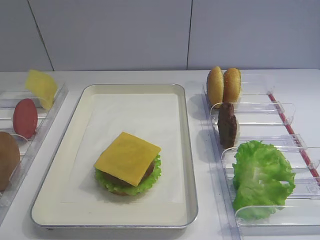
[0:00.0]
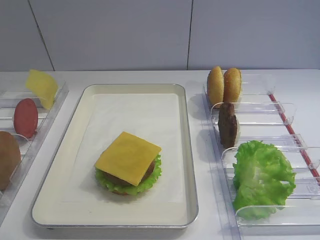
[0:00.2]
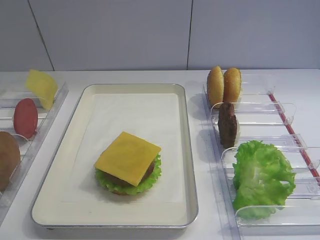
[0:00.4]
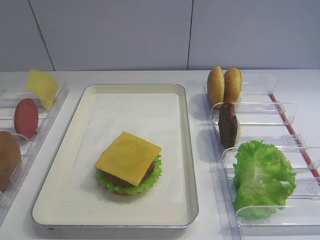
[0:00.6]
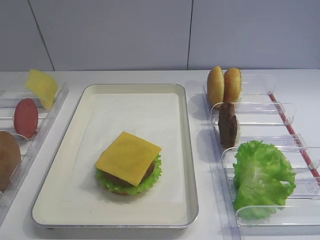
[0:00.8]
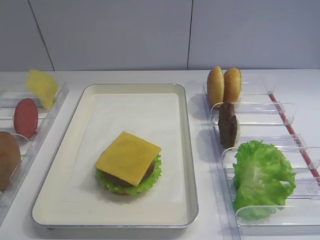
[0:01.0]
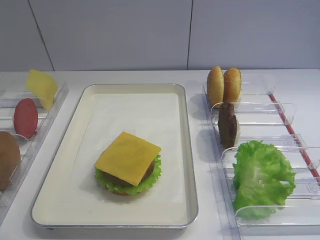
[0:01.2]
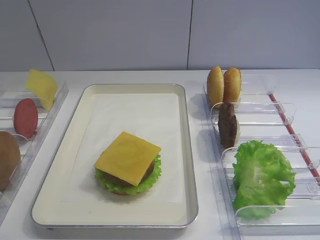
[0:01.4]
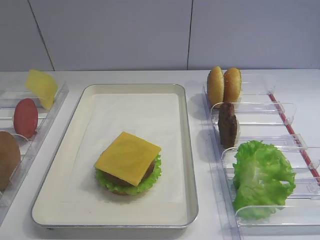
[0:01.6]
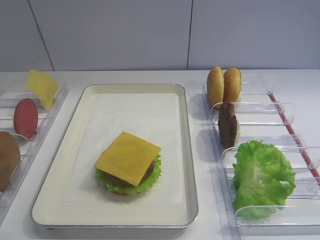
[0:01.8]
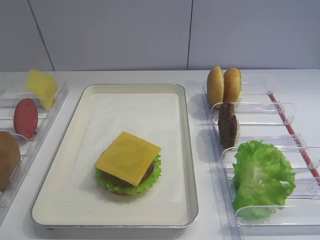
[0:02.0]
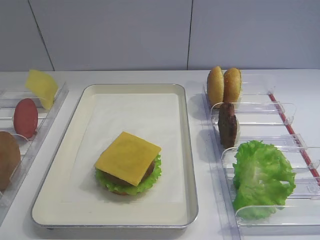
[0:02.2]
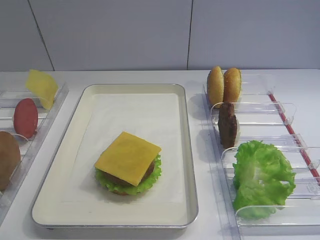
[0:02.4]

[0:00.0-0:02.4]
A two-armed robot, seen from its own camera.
0:00.0 to 0:02.4: The two grippers keep their place.

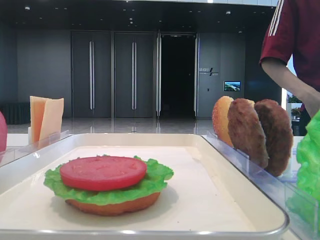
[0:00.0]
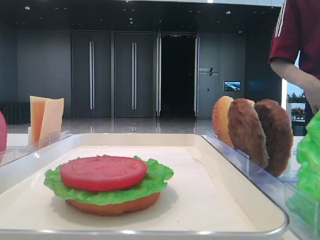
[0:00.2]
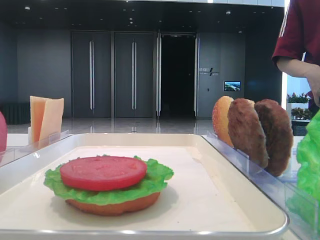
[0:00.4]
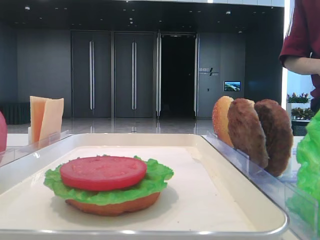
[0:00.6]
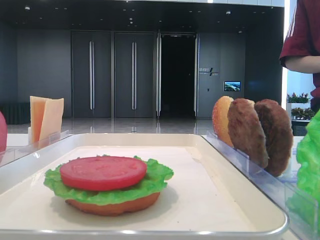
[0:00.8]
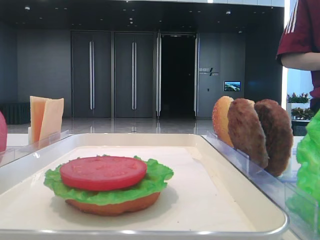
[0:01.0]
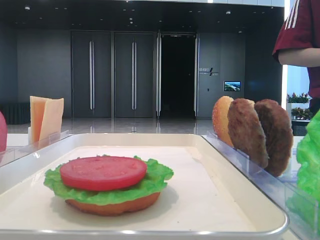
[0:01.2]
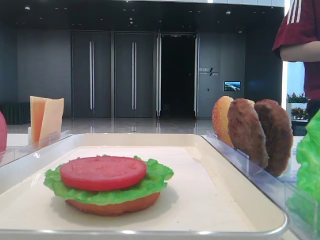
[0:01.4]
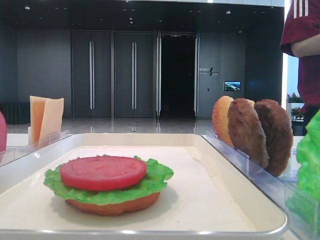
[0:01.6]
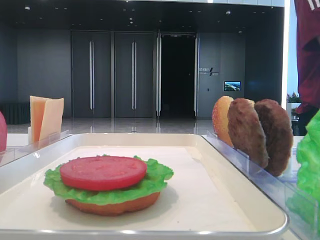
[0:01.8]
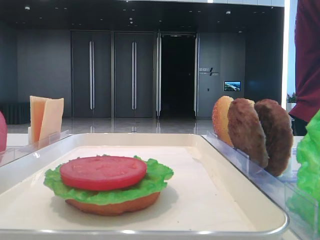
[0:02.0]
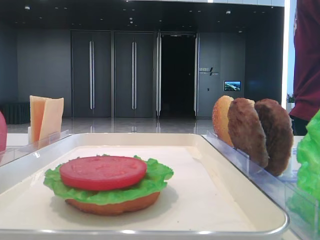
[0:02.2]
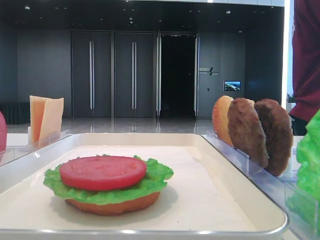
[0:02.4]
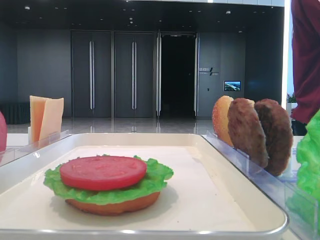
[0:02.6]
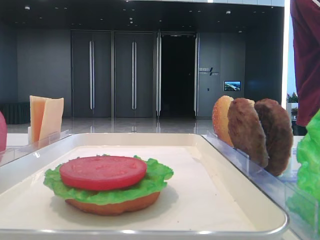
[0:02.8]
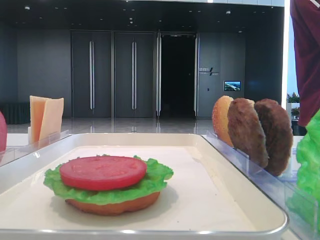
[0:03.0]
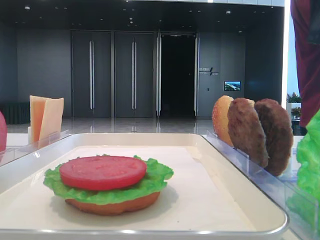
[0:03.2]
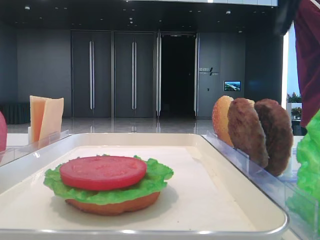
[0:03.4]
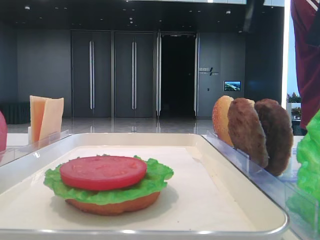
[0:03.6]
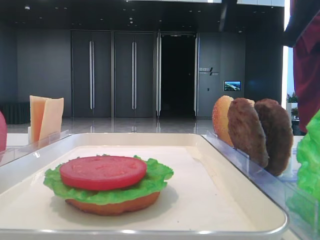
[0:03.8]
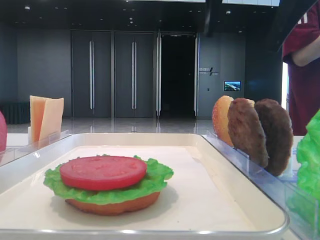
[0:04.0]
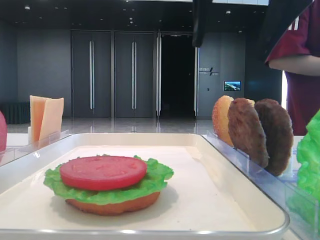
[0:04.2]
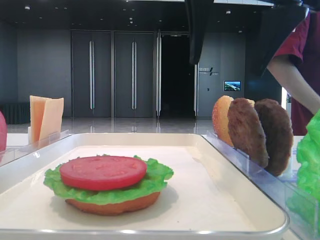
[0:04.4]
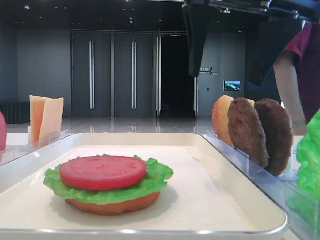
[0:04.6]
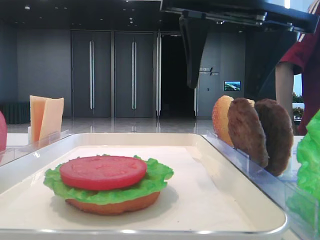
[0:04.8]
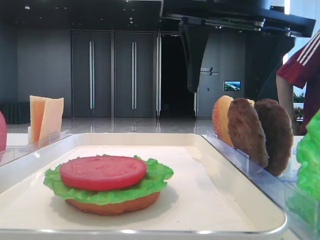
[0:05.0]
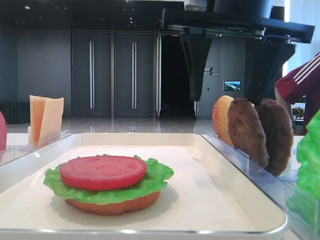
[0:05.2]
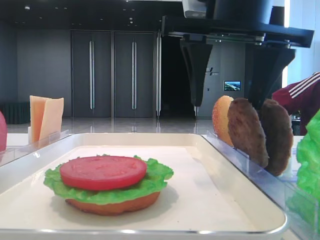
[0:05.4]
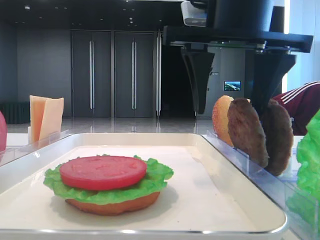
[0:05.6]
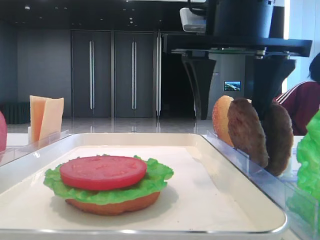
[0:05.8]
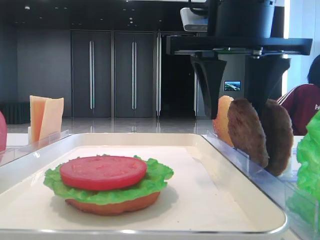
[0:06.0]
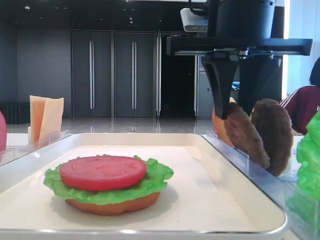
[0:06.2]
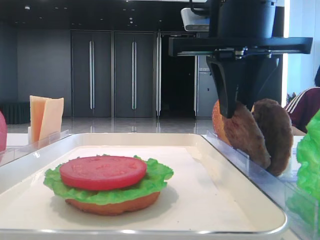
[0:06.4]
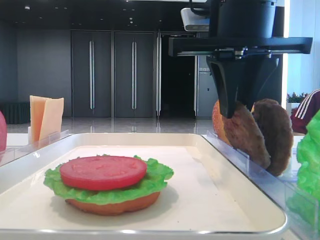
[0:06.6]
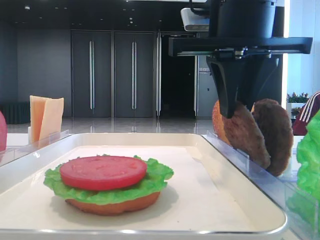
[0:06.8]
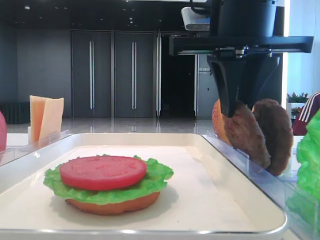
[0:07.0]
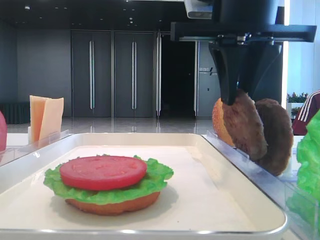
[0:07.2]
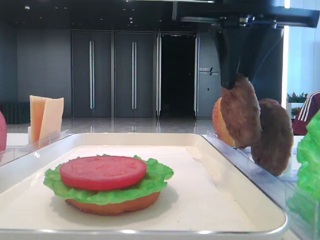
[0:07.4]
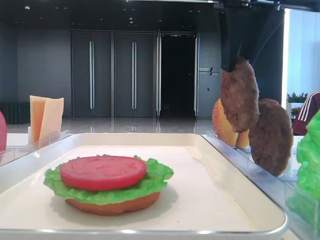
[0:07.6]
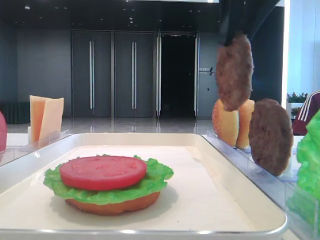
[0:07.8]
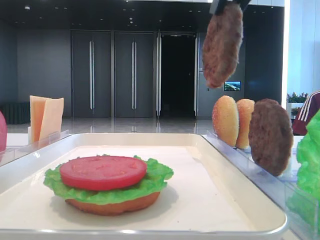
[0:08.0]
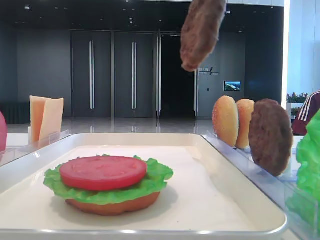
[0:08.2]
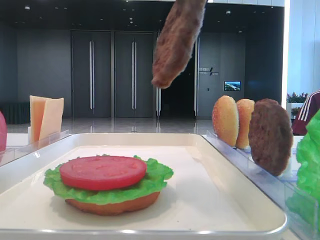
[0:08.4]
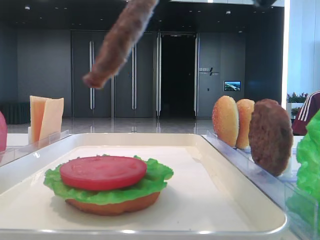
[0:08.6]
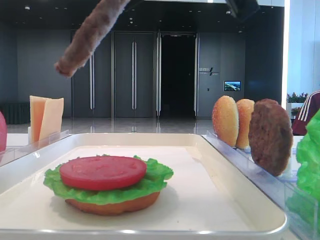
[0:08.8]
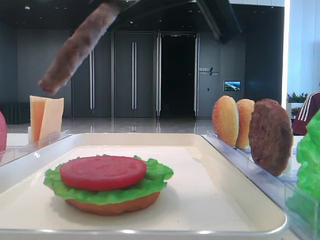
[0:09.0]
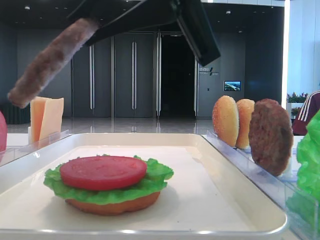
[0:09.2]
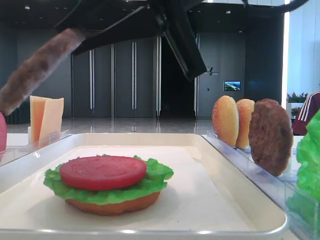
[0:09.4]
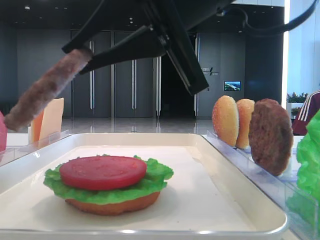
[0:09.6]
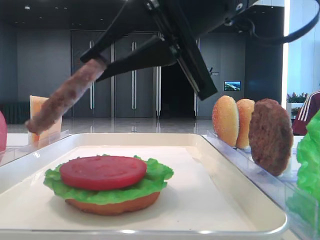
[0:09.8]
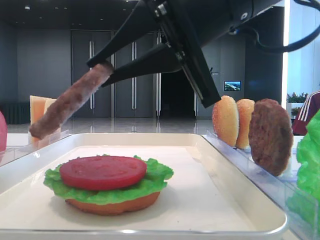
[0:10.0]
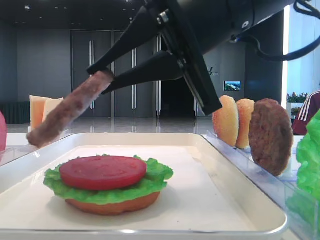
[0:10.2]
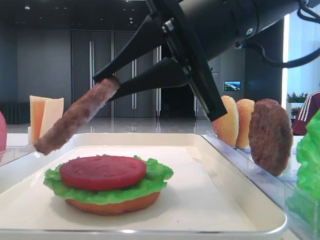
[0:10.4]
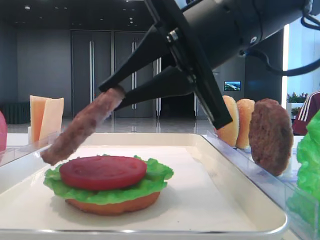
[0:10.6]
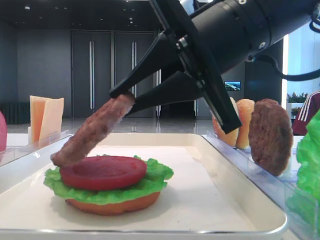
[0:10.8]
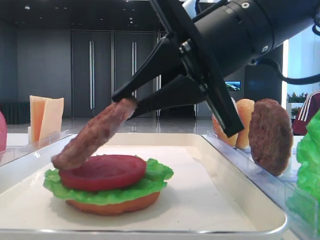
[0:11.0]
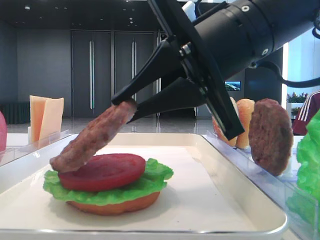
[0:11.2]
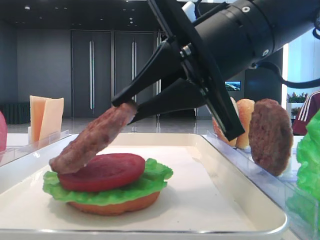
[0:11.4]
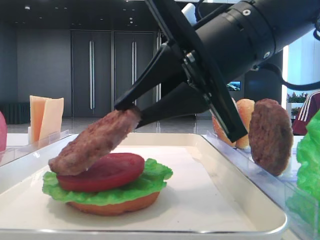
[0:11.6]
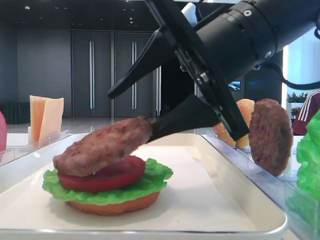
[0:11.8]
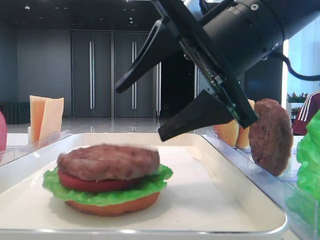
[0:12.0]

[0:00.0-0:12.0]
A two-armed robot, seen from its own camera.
Step, 0:00.0 to 0:06.8: Grab the patty with the right hand.
Step, 0:07.0 to 0:11.8: Place the patty on the tomato slice with the right hand.
0:01.6 to 0:03.0: The right gripper shifts some 20 cm forward.
0:03.0 to 0:04.4: The right gripper heads to the left, covering some 15 cm.
0:04.4 to 0:06.0: The right gripper ends up about 5 cm from where it was, and closes its fingers.
0:06.0 to 0:07.6: The right gripper goes about 5 cm upward, and closes its fingers.
0:07.6 to 0:09.0: The right gripper moves backward, about 5 cm, and reaches roughly 5 cm upward, then returns.
0:09.0 to 0:10.4: The right gripper moves downward, about 5 cm.
0:10.4 to 0:12.0: The right gripper opens.

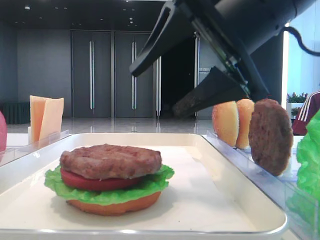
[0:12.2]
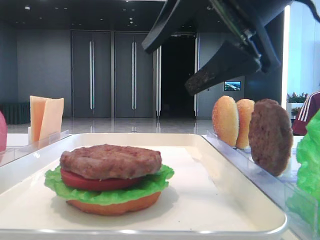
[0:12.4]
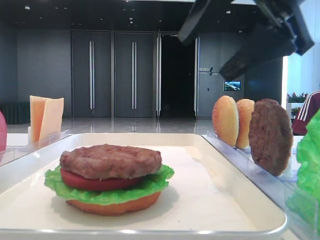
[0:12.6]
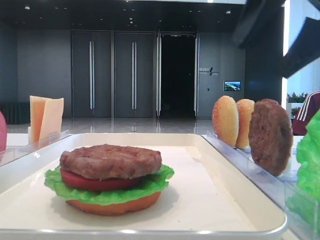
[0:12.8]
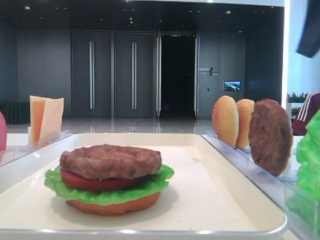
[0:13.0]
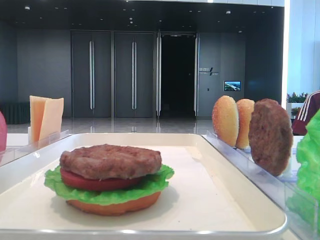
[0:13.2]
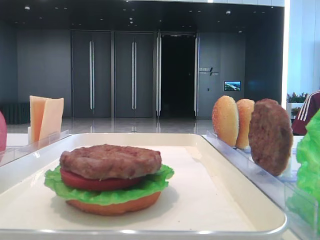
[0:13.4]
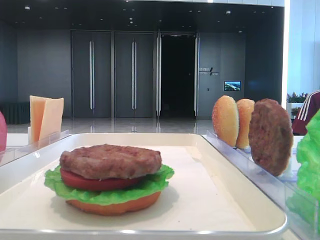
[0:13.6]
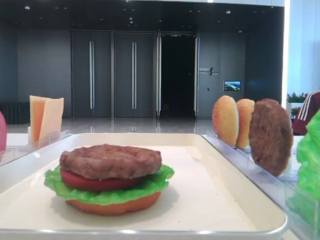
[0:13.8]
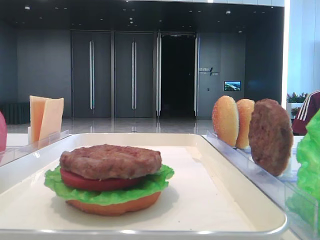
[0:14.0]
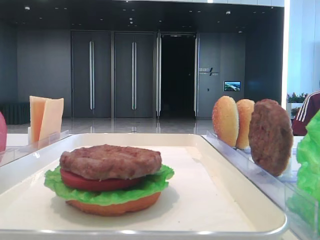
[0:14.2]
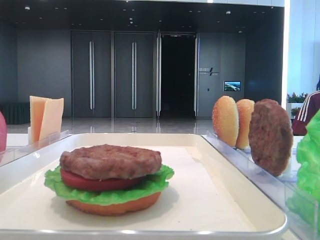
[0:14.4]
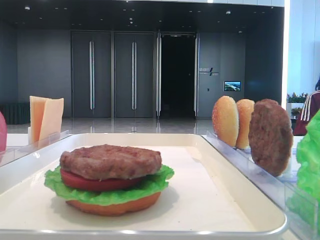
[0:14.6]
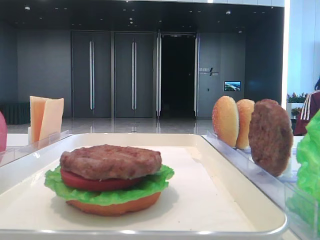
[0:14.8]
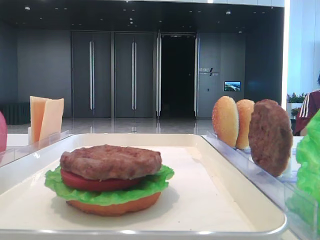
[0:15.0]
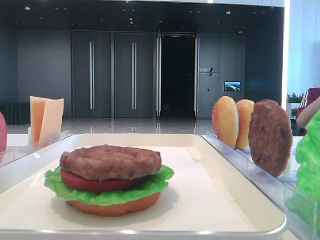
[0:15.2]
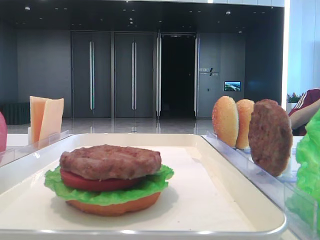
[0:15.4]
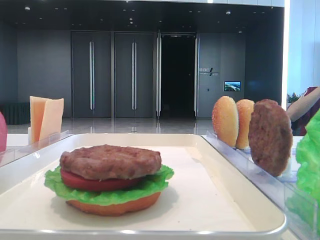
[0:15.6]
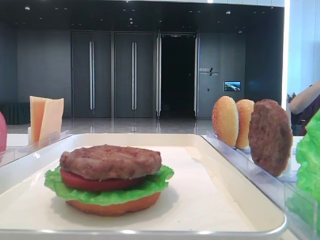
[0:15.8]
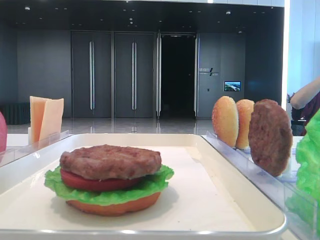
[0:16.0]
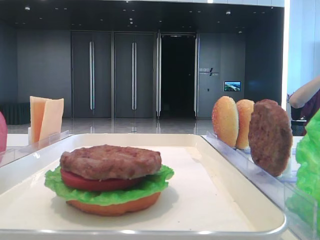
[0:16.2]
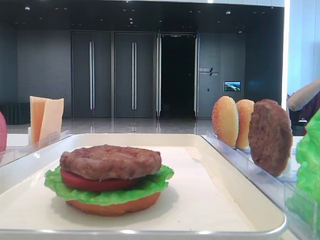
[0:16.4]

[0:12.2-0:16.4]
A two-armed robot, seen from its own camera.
0:12.2 to 0:13.6: The right gripper shifts about 20 cm to the right.
0:13.6 to 0:15.0: The right gripper travels backward by some 20 cm.
0:15.0 to 0:16.4: Neither gripper changes place.

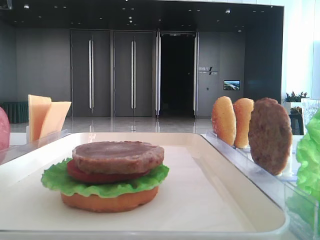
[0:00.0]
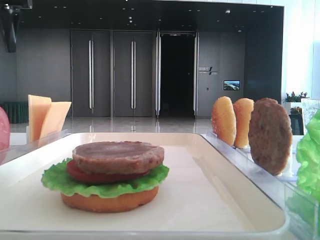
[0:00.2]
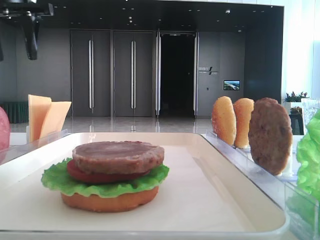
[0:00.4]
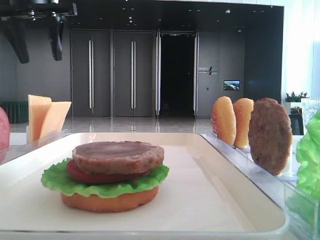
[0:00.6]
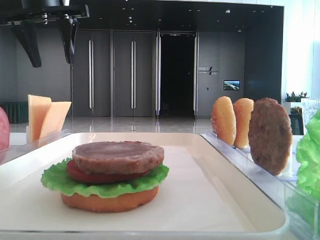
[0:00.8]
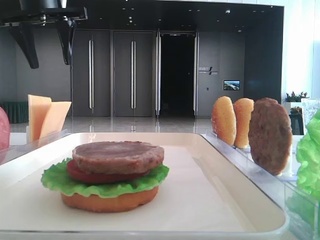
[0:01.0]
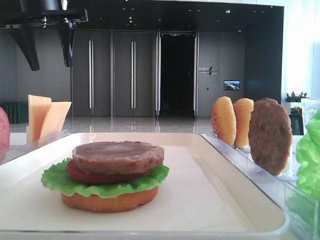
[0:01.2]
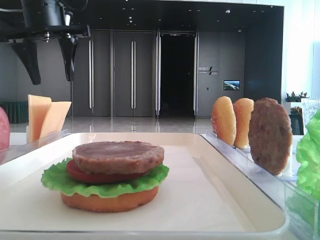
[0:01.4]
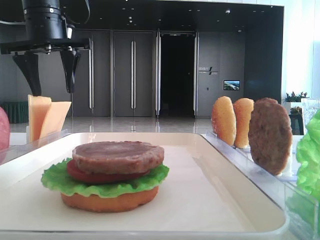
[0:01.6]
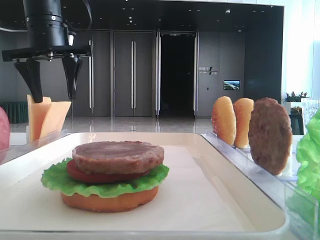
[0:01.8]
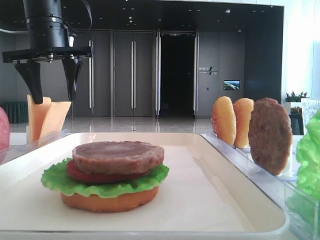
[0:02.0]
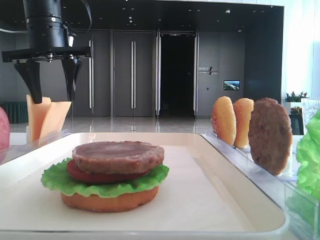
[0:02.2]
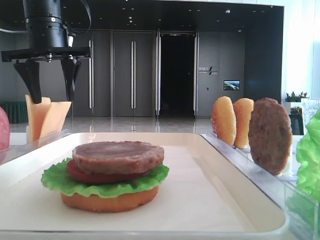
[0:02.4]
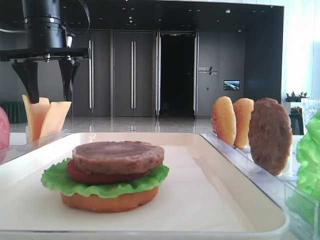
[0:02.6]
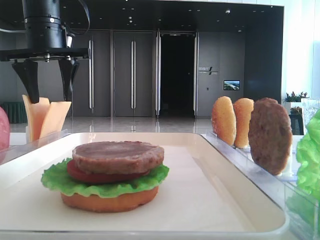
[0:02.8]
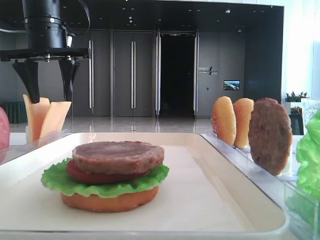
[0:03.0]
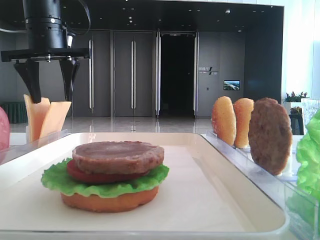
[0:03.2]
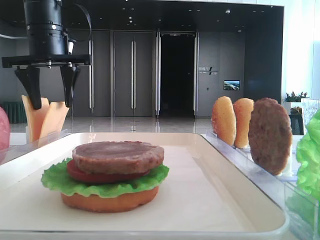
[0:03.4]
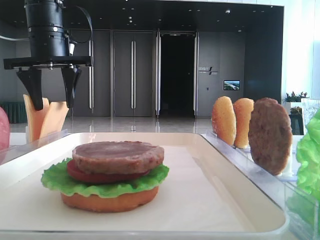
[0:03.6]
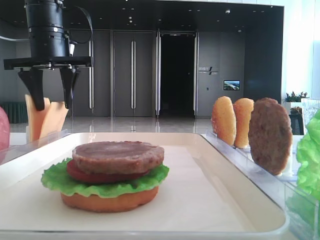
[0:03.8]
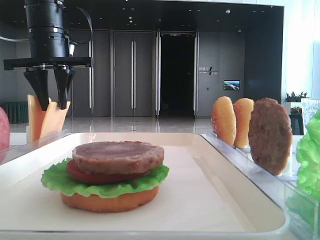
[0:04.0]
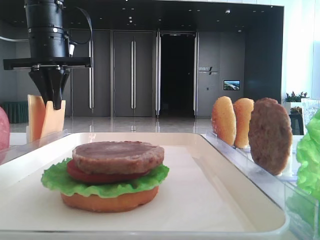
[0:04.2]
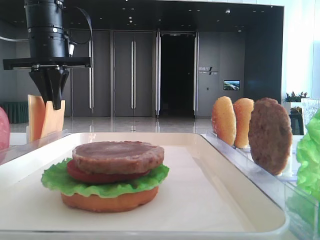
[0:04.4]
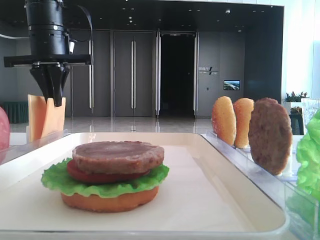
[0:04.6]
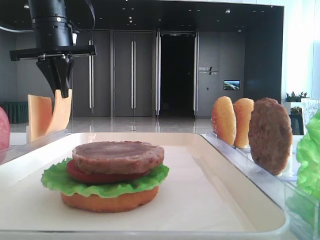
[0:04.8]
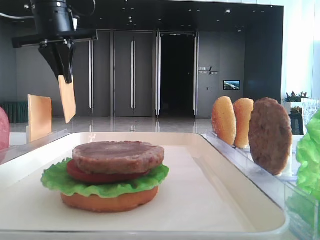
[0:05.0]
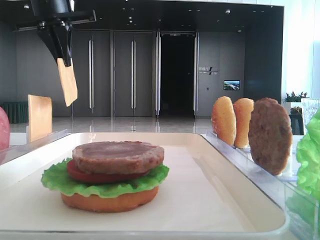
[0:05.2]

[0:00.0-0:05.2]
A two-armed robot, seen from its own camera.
Step, 0:00.0 to 0:04.4: Pick up the cheese slice with the left hand.
0:00.0 to 0:01.8: The left gripper goes approximately 15 cm to the right and downward.
0:01.8 to 0:03.4: There are only small adjustments of the grippers.
0:03.4 to 0:05.2: The left gripper travels upward by about 5 cm, and closes its fingers.
